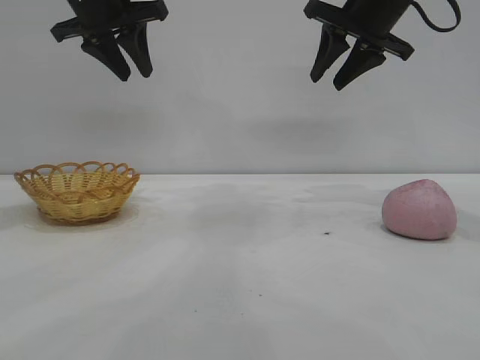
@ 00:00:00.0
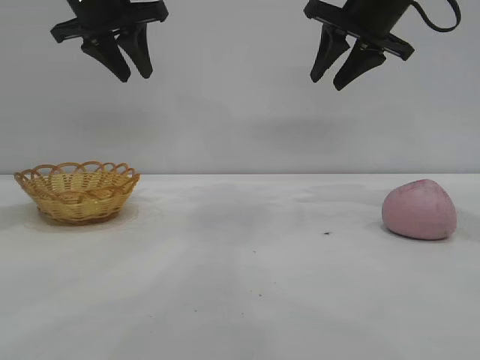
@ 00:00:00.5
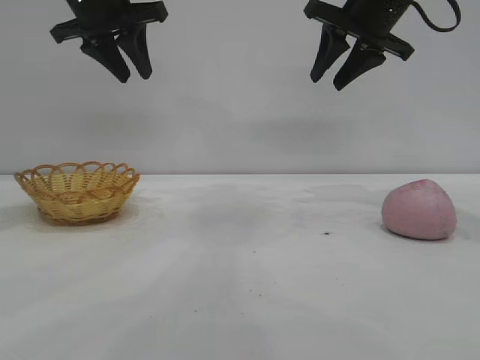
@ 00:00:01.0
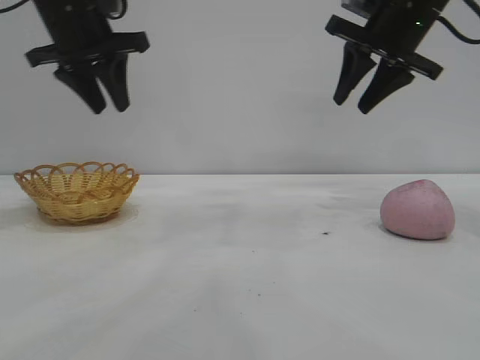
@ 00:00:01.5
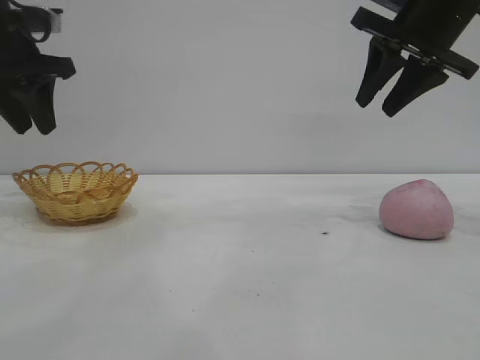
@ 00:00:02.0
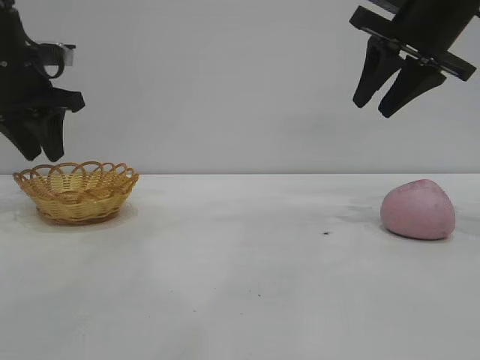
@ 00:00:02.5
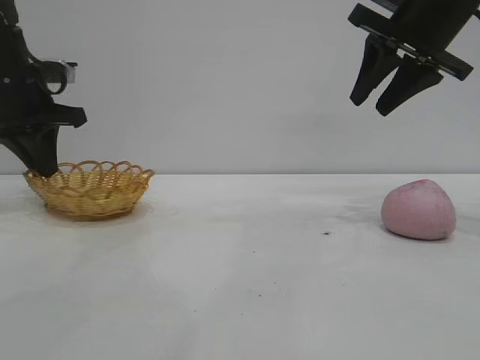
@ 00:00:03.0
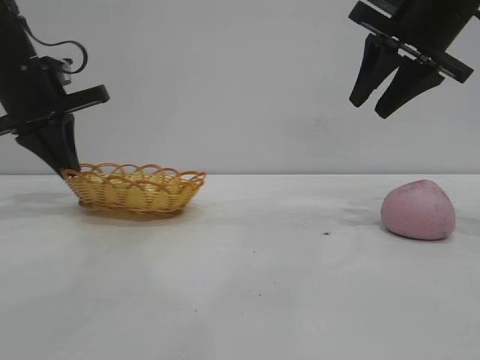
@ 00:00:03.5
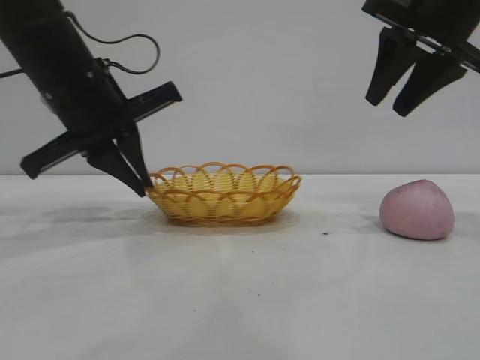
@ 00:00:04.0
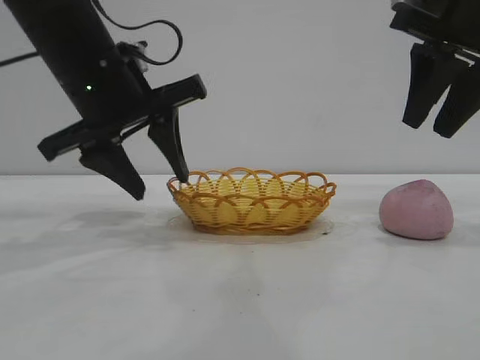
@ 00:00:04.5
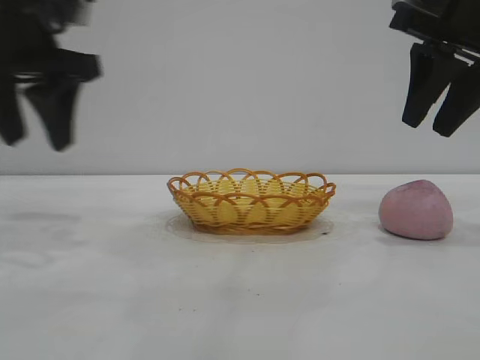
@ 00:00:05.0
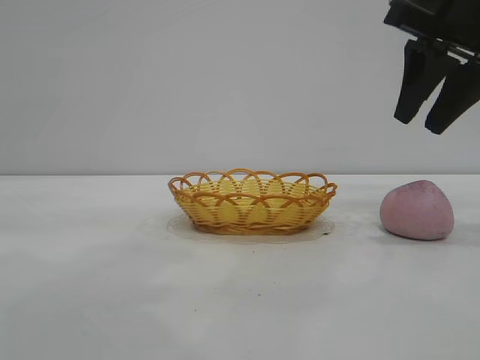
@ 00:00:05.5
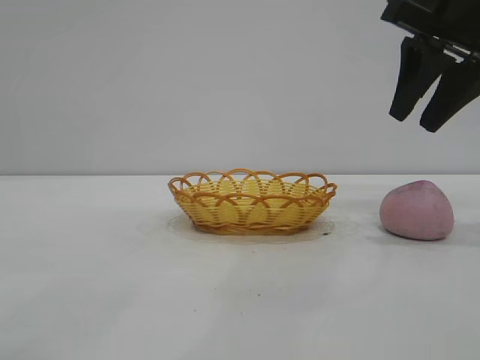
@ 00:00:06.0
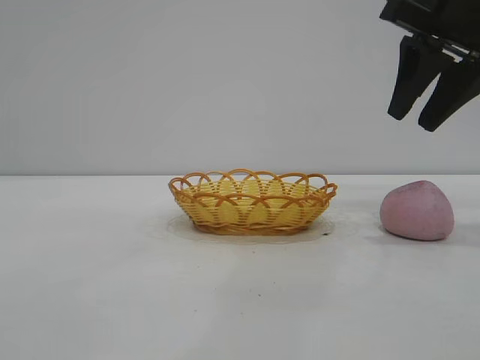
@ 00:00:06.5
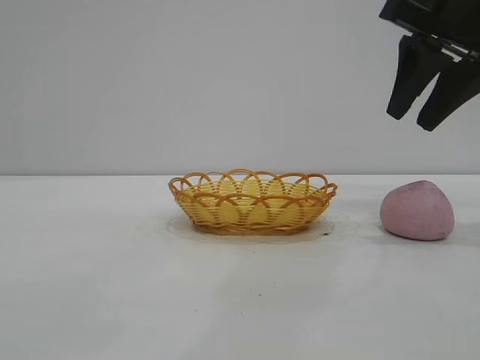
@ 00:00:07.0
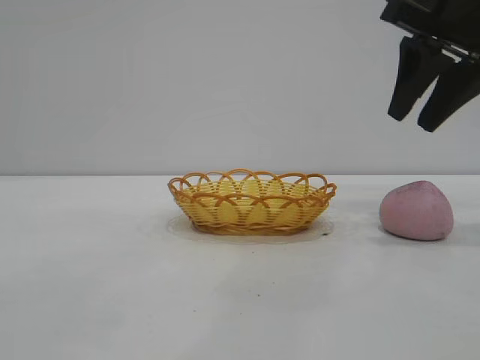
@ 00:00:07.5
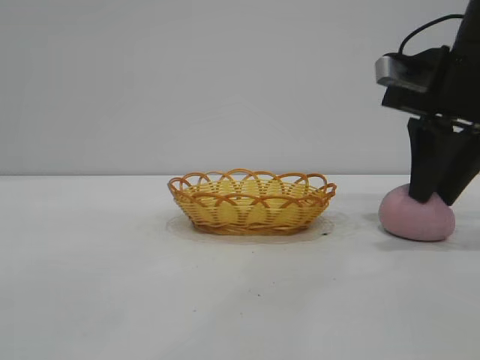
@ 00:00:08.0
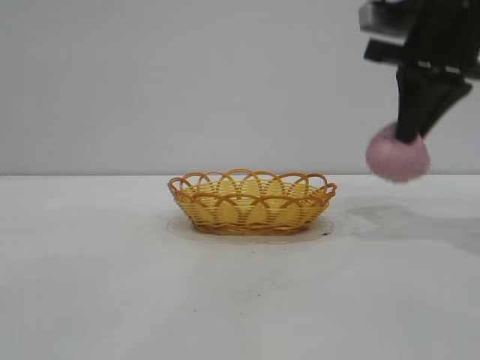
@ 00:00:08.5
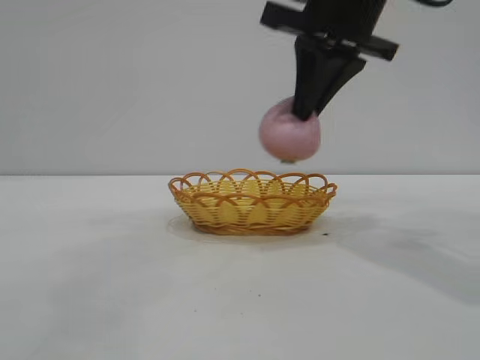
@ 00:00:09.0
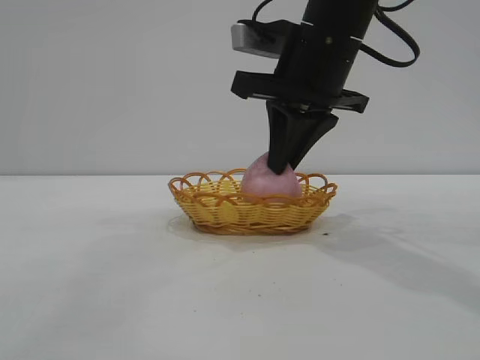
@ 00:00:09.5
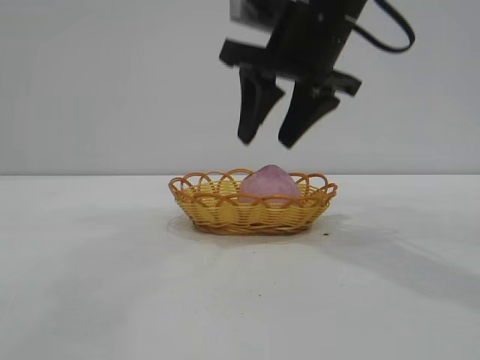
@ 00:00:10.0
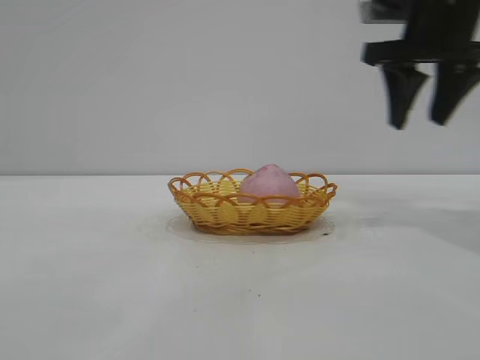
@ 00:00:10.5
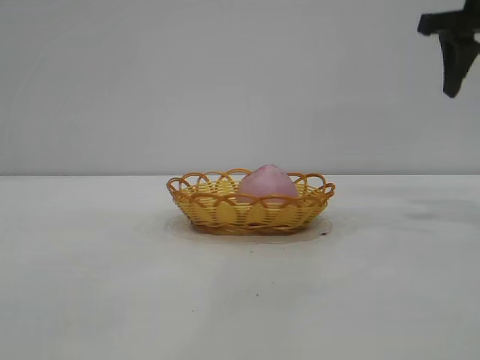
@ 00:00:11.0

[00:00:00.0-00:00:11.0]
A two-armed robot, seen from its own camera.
Task of the whole recording: pick up the peach and put it into the basket.
Step, 00:00:00.0 to 00:00:04.5: Move the basket to the center of view.
Step, 00:00:05.0 to 00:00:08.5: Pick up the peach.
Step, 00:00:09.0 to 00:00:10.0: place the peach into the basket.

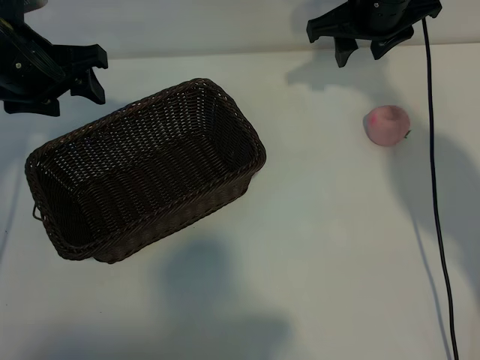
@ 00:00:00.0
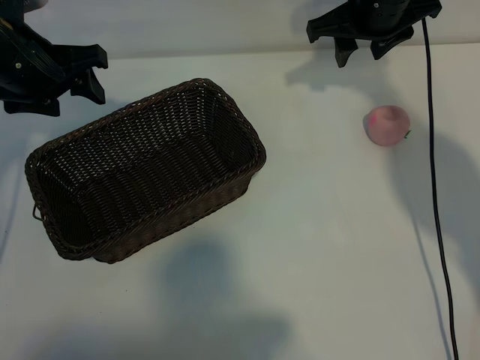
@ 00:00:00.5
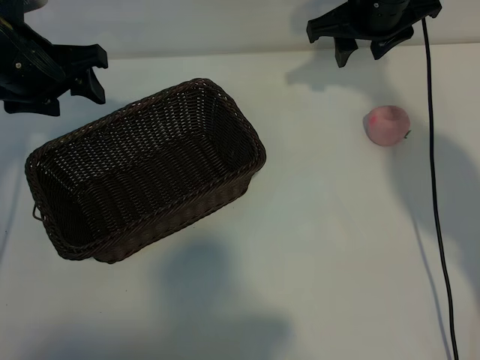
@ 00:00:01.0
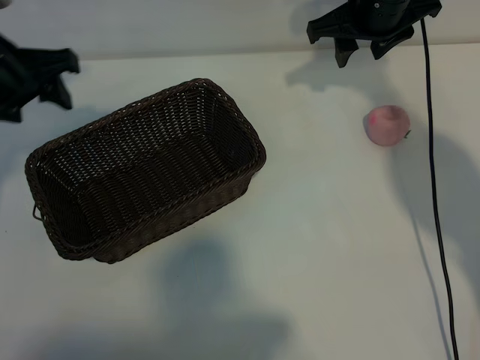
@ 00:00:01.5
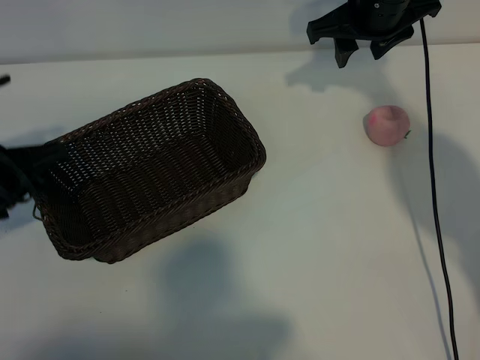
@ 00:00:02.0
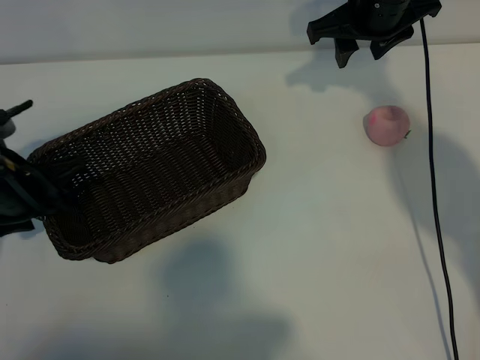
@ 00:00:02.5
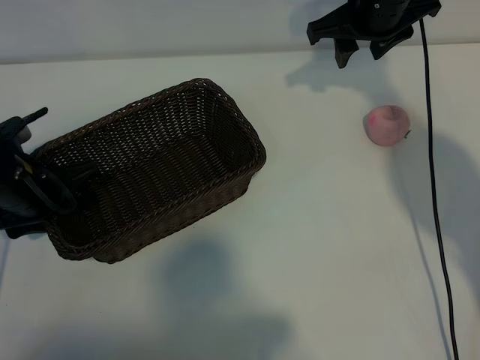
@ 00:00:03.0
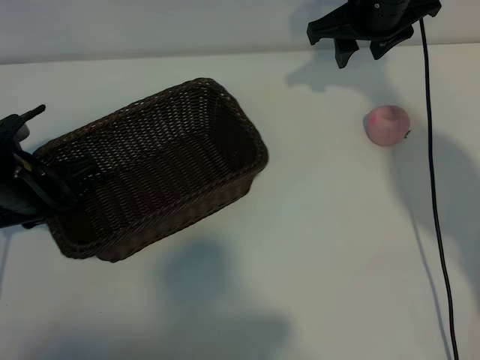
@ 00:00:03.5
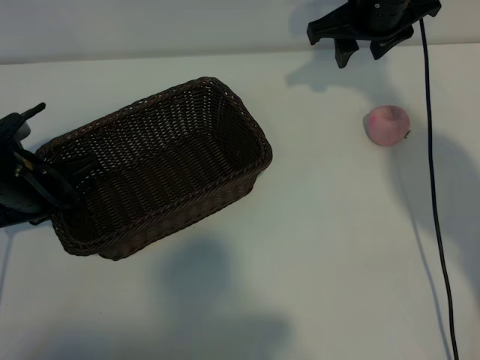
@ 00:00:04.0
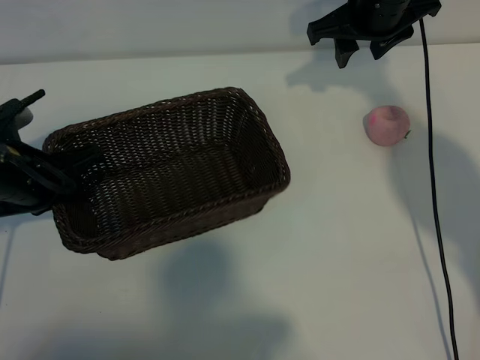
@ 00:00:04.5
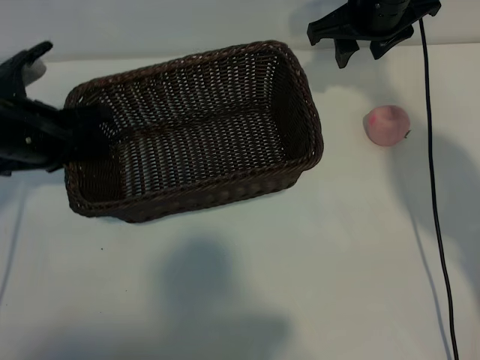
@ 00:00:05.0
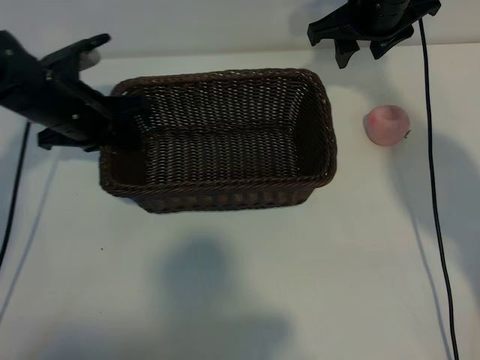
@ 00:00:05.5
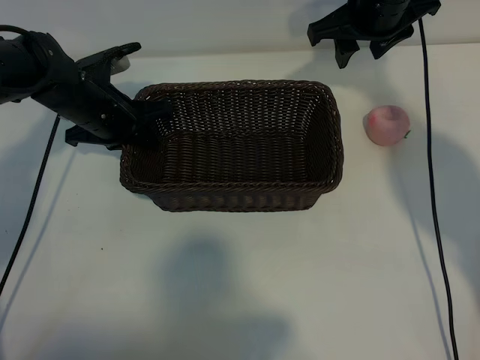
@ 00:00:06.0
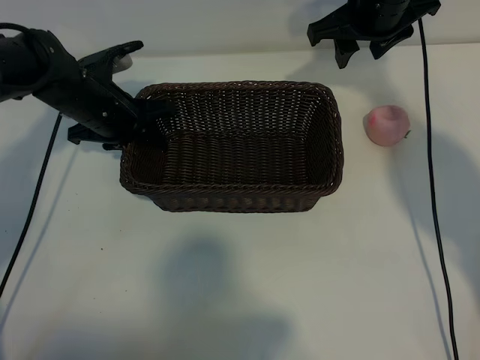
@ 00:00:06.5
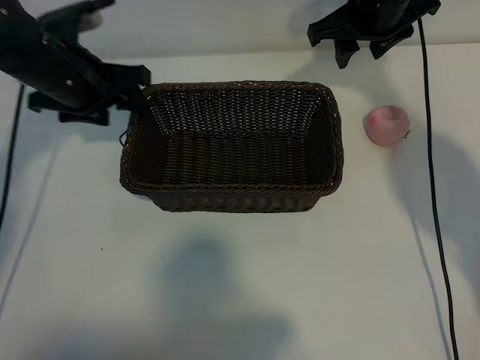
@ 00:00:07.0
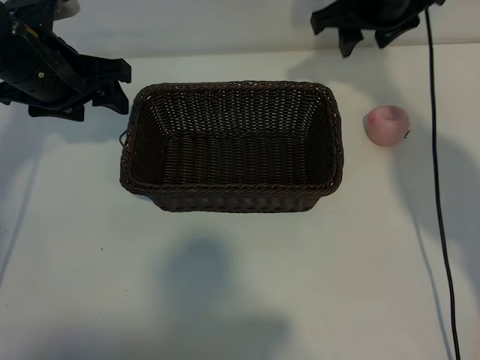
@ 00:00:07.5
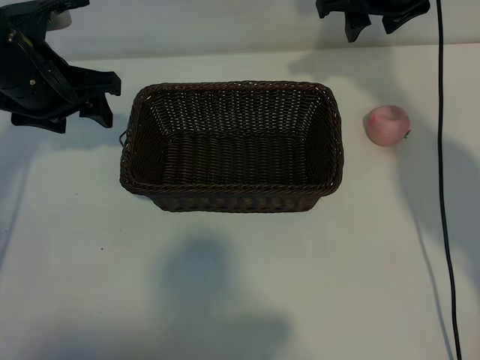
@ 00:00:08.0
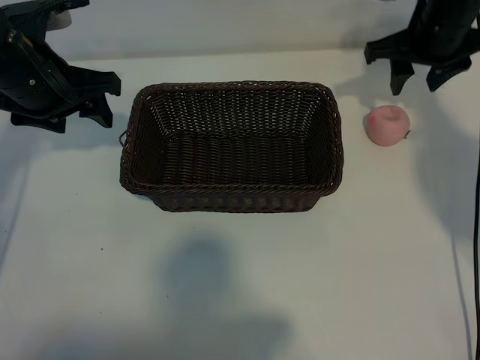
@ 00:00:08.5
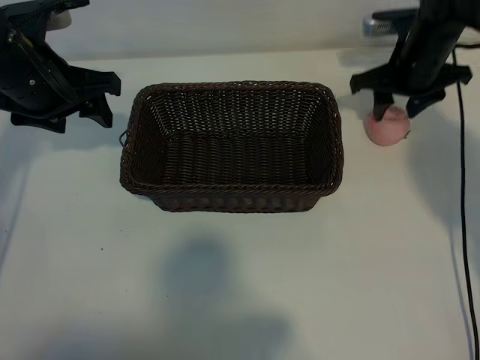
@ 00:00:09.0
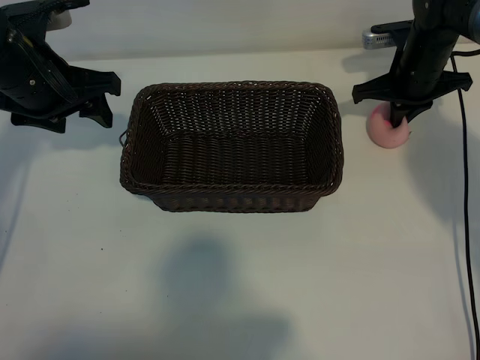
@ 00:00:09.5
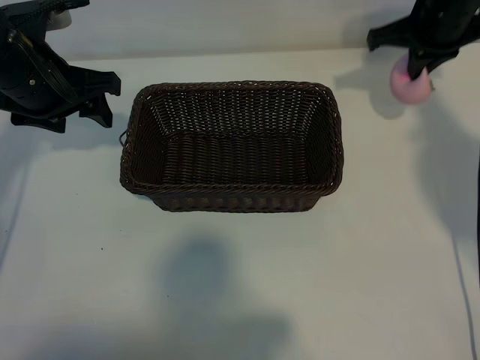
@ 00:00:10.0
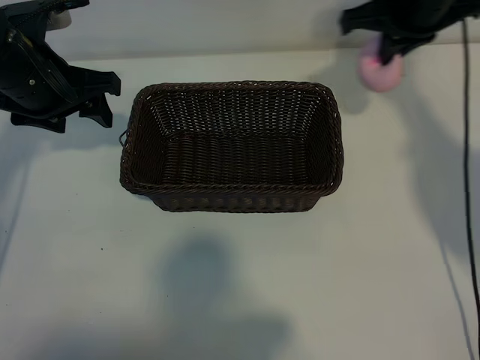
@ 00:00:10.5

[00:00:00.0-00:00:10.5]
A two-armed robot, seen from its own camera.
Task of the whole recording: pick up the peach and put it into the basket.
Step, 00:00:01.5 to 00:00:03.5: Grasp the basket with left gripper.
Step, 00:00:04.5 to 00:00:06.5: Place the basket in the center of view with left gripper.
Step, 00:00:07.0 to 00:00:09.5: Grasp the peach with right gripper.

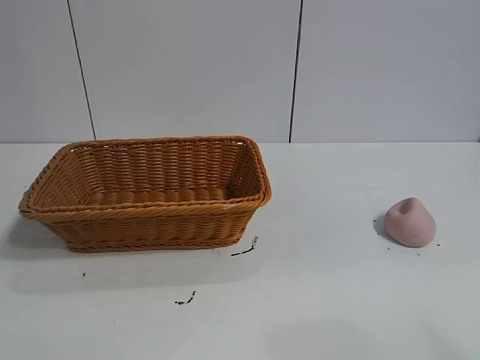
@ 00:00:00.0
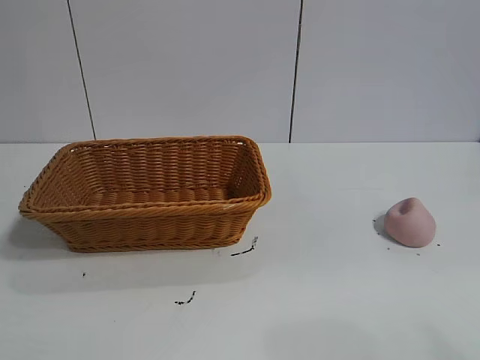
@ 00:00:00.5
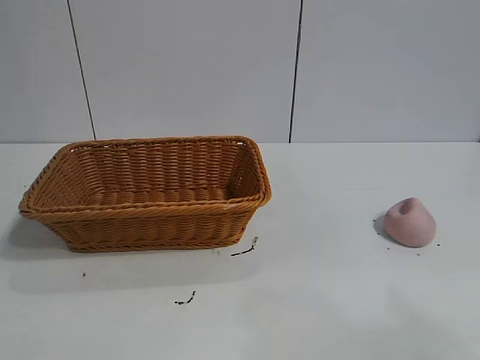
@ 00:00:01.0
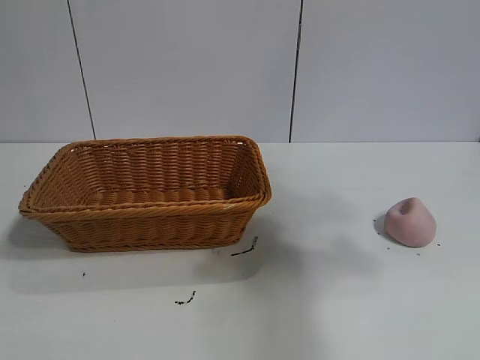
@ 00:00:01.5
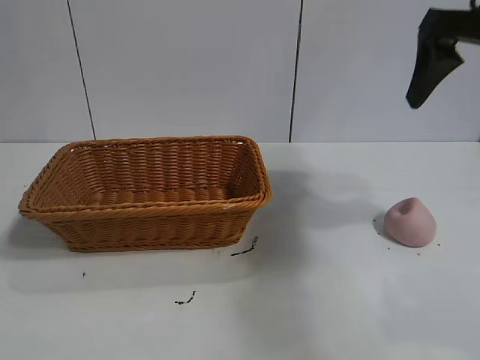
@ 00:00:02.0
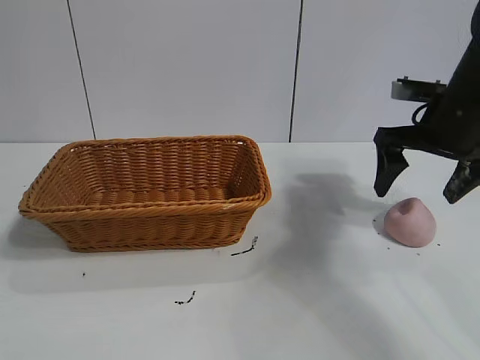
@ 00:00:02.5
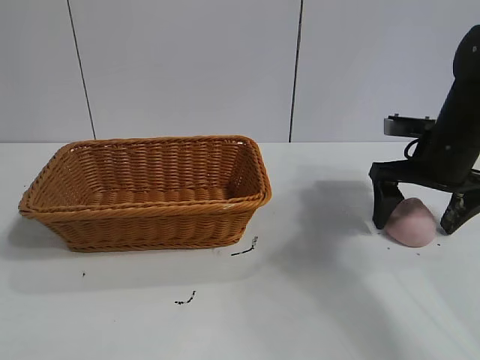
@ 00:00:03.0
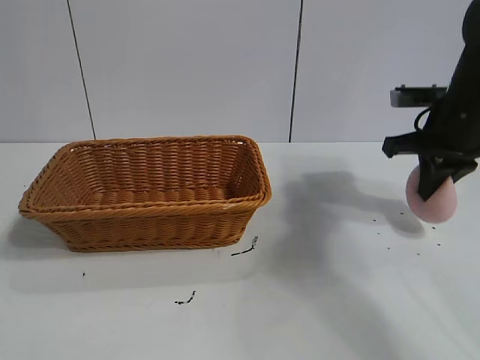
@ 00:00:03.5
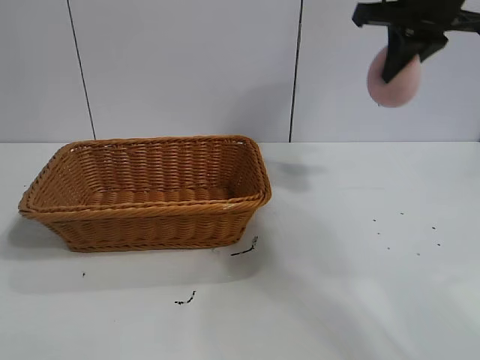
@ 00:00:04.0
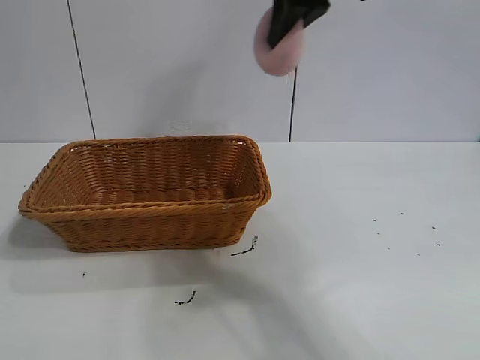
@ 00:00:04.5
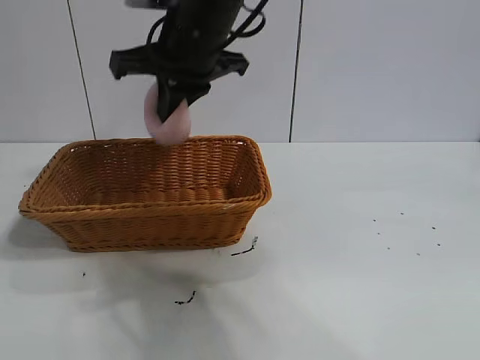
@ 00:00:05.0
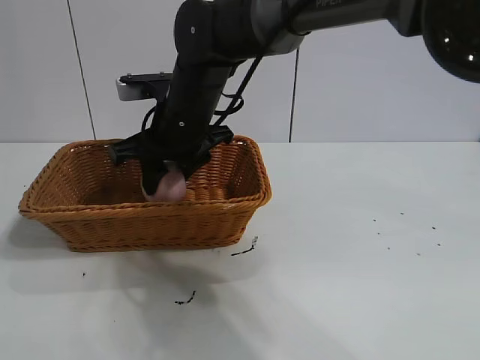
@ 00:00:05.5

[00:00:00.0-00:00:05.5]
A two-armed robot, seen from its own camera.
Task of the whole recording: pick up the peach and put it into the basket.
Step, 00:00:01.0 to 00:00:03.0: Grasp the peach with right gripper.
